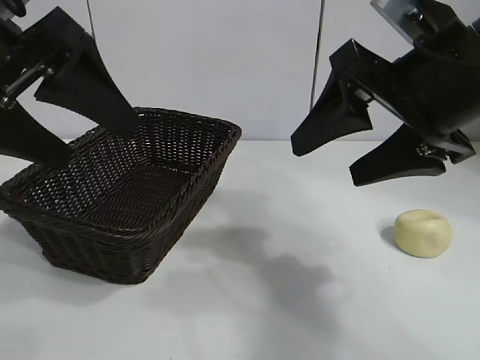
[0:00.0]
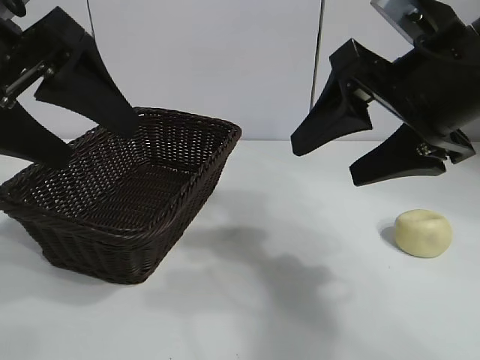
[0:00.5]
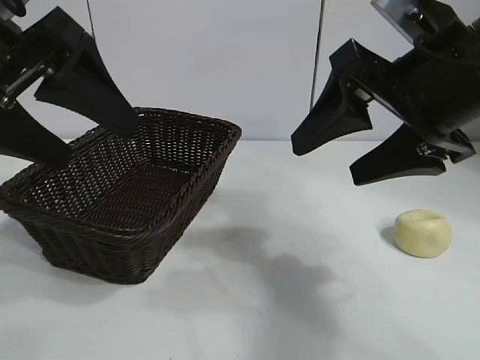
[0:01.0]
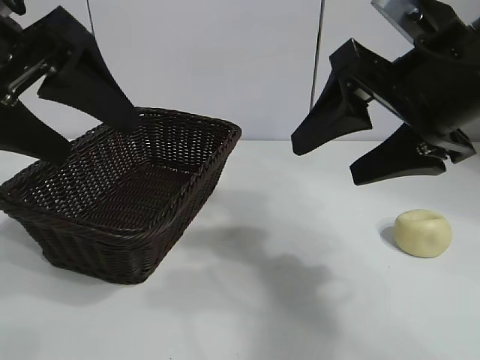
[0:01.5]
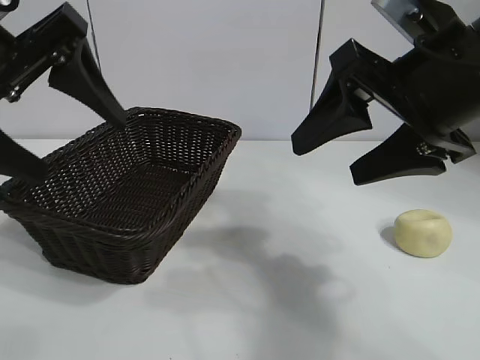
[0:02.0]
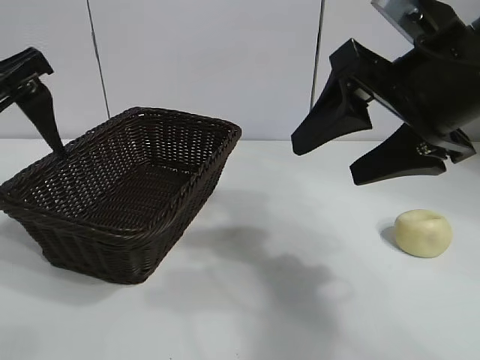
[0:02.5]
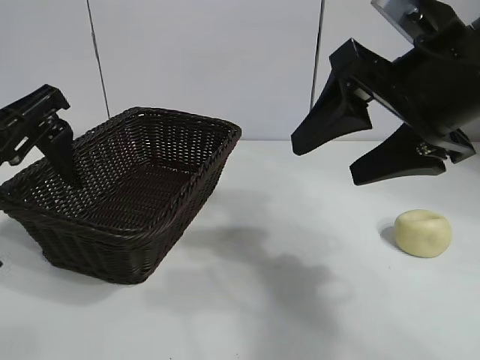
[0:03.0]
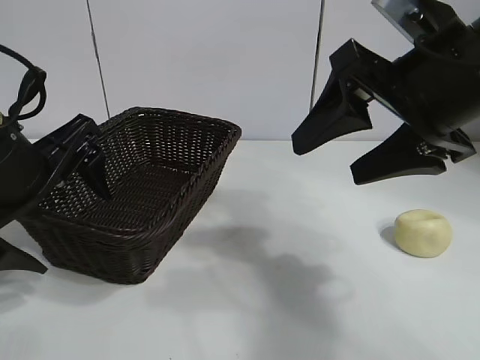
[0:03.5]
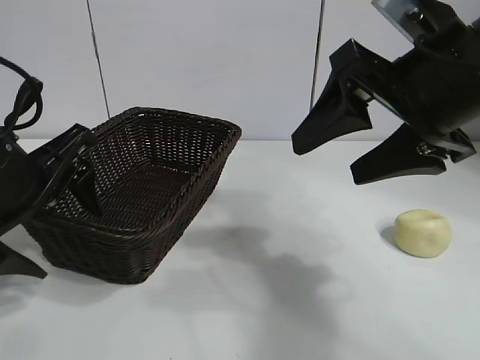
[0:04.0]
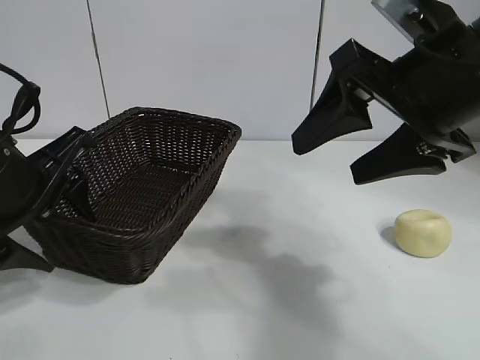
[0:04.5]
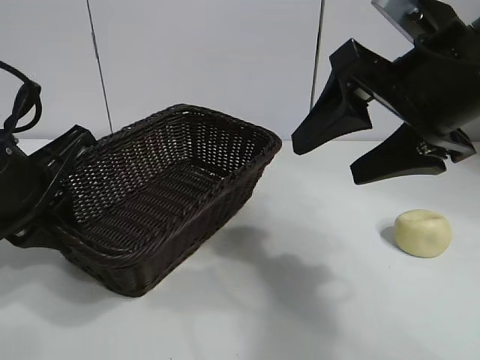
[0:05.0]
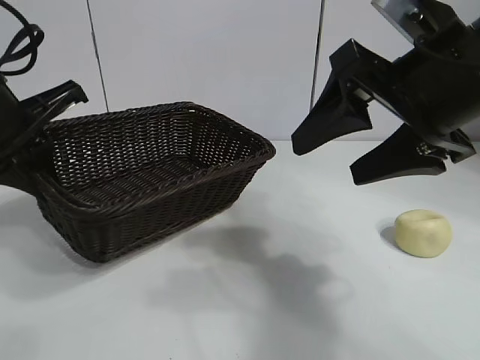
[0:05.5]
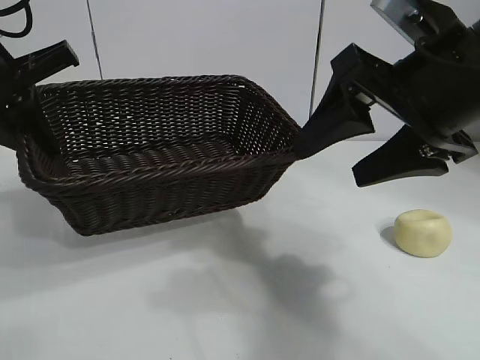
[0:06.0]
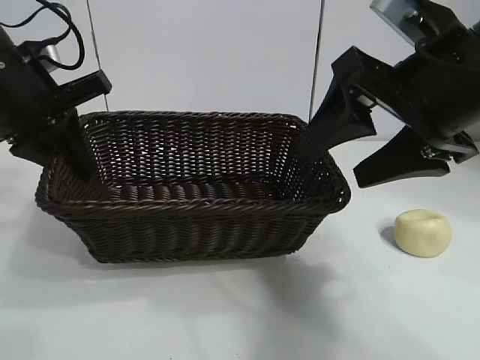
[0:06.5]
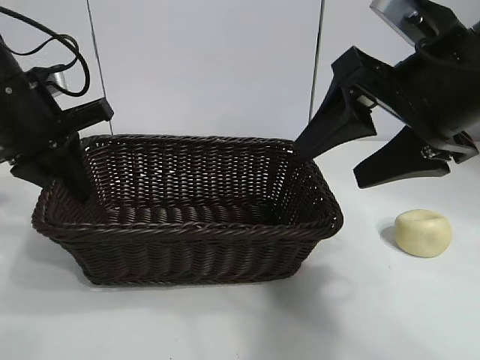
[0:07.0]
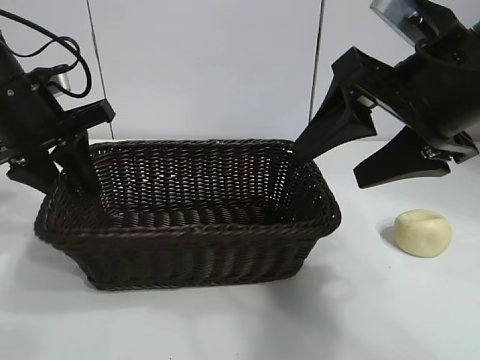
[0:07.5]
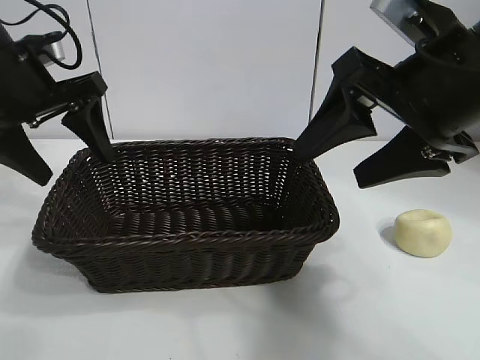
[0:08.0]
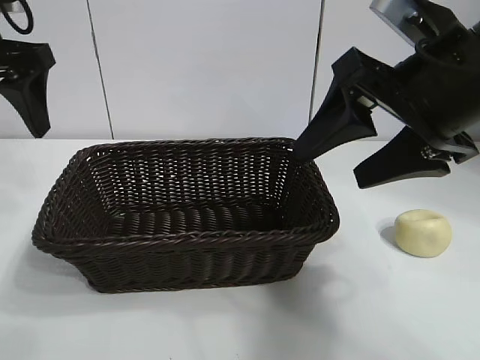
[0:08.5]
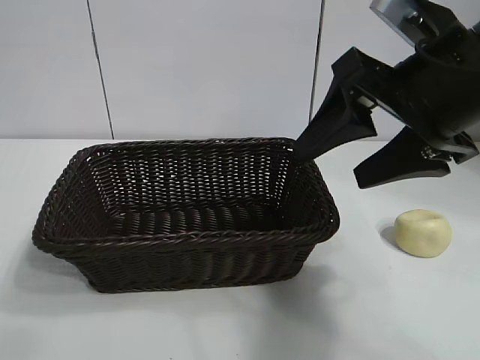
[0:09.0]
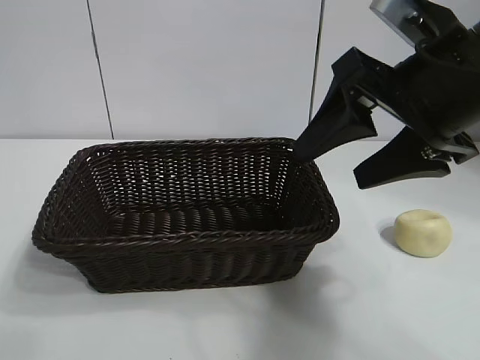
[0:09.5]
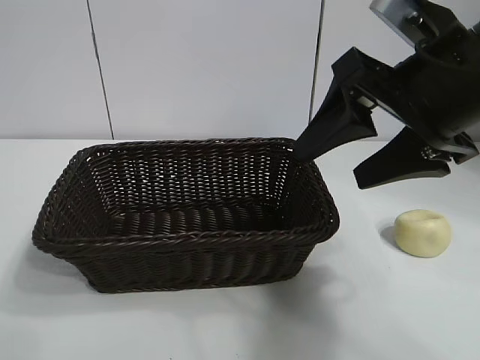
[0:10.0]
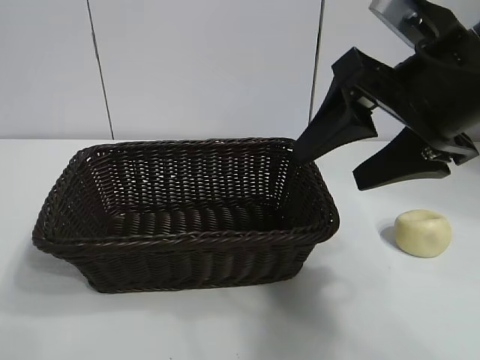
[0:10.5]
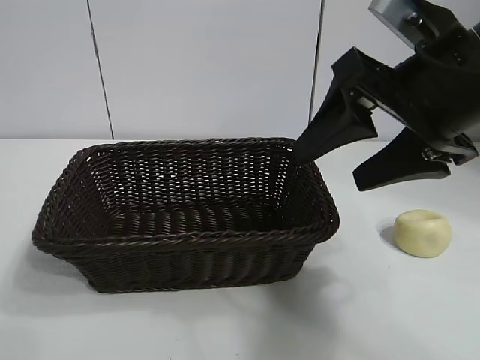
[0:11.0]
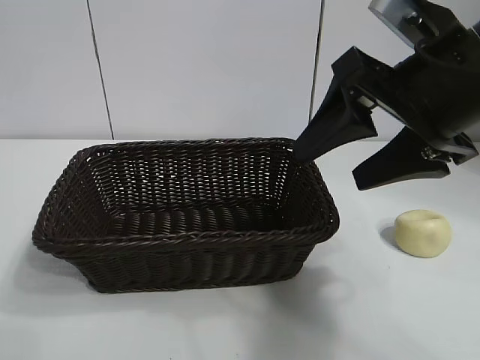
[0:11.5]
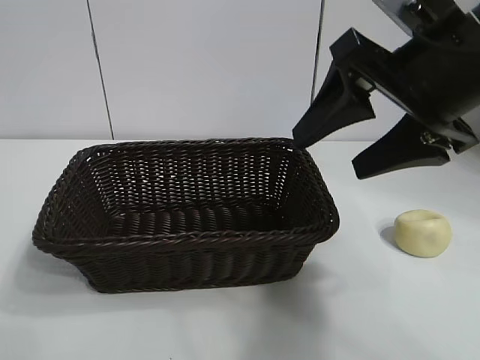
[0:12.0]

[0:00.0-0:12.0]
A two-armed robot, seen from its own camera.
Task of the whole recording: pick up the egg yolk pastry and put it into the basket.
Step, 0:01.5 to 0:04.5: Grasp the basket with left gripper.
Step, 0:05.5 to 0:07.5: Place the basket in the center of view with left gripper.

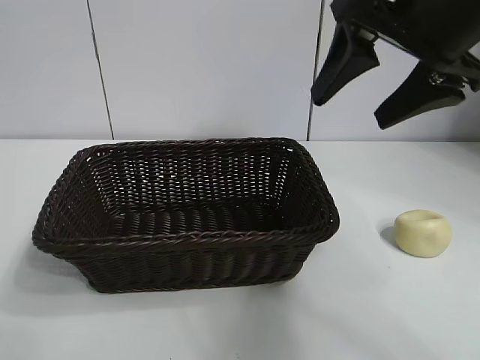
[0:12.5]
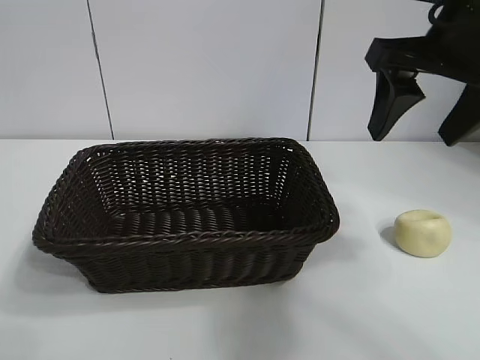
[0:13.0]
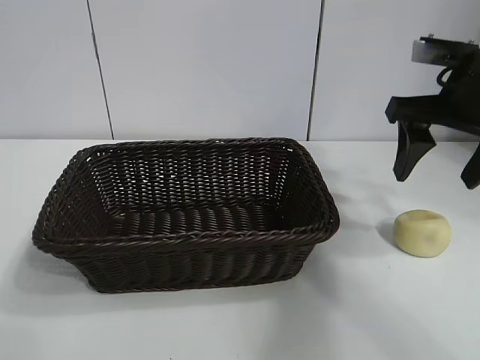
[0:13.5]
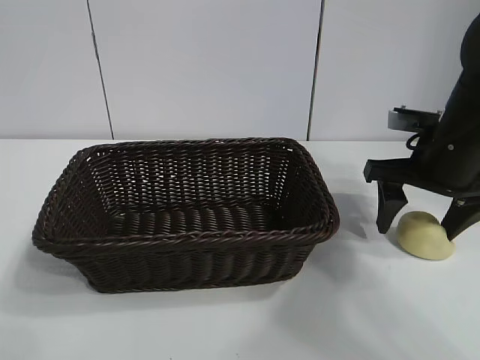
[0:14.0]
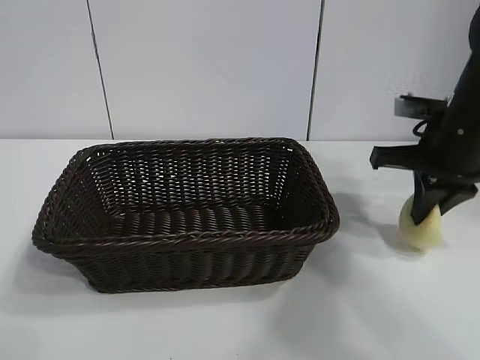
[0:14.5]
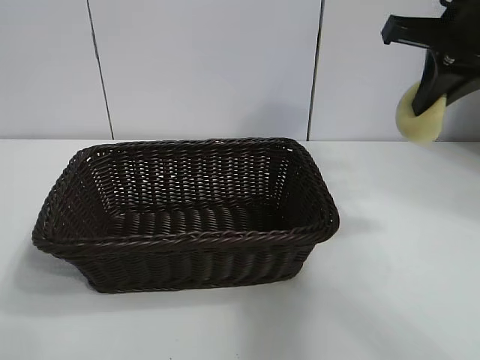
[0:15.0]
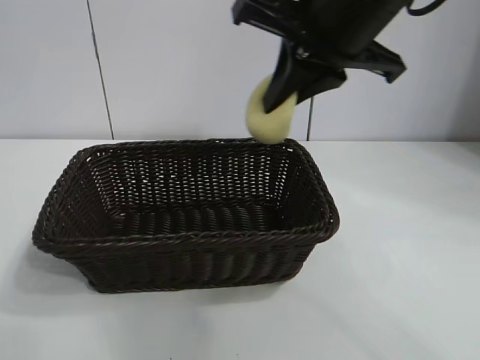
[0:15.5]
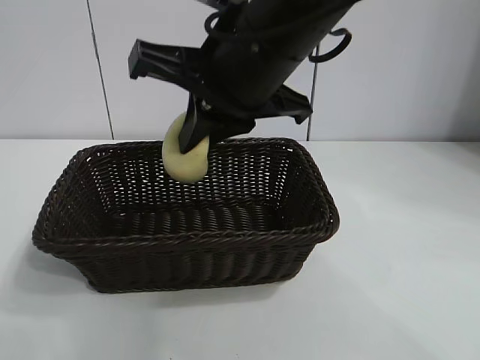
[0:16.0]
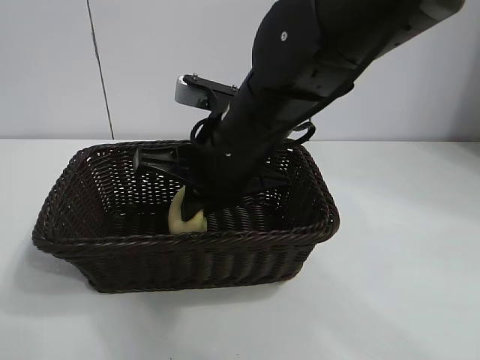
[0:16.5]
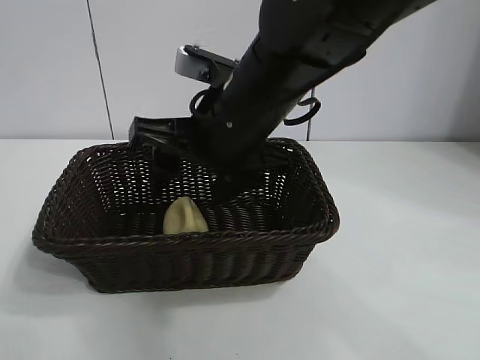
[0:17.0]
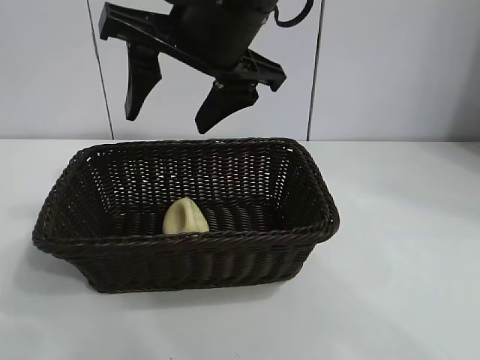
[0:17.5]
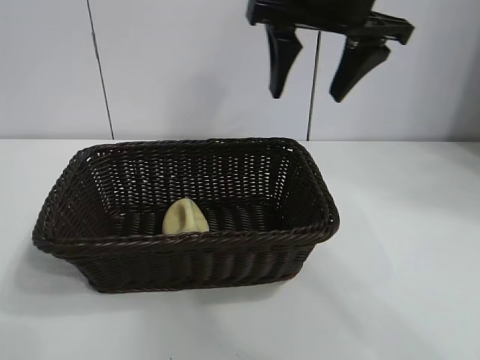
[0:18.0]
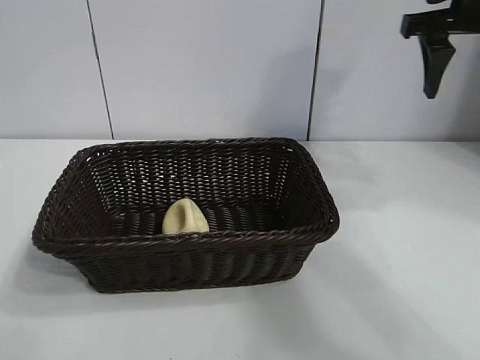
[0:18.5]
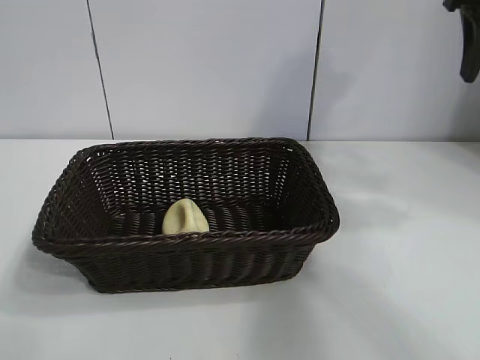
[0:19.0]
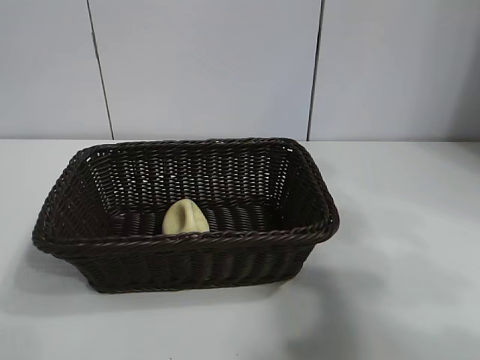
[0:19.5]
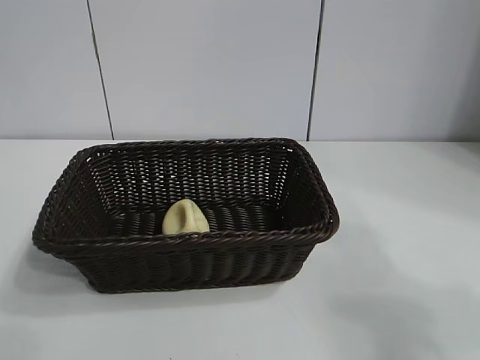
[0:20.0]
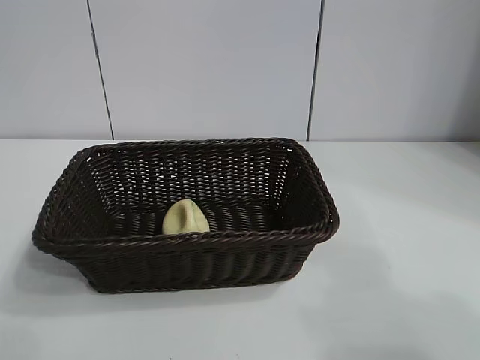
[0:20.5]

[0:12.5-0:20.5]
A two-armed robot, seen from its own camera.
Task of the whole recording: pick up the egg yolk pastry and put it into the basket.
Step, 0:14.5 to 0:17.0: Place the egg yolk pastry in the basket with right gripper.

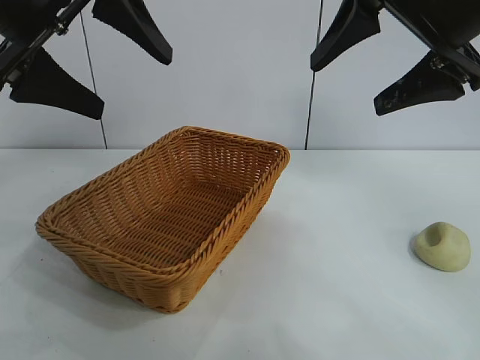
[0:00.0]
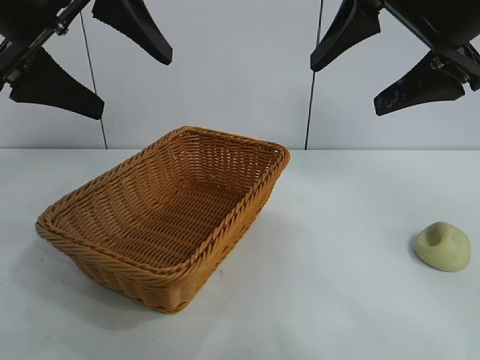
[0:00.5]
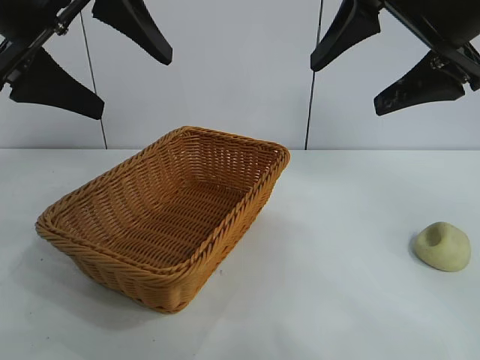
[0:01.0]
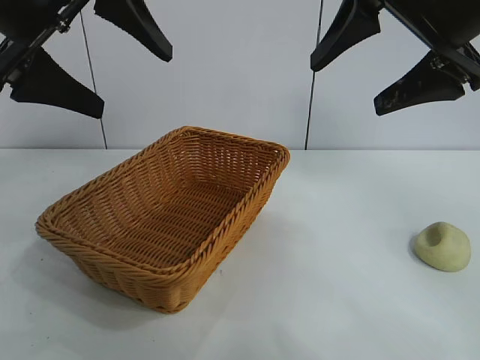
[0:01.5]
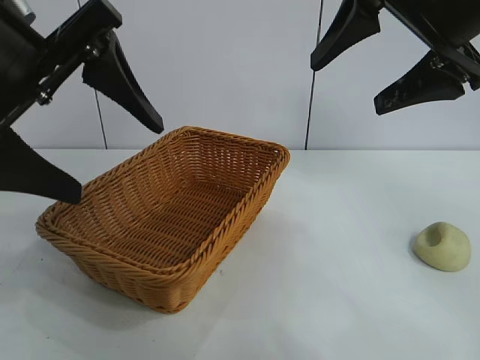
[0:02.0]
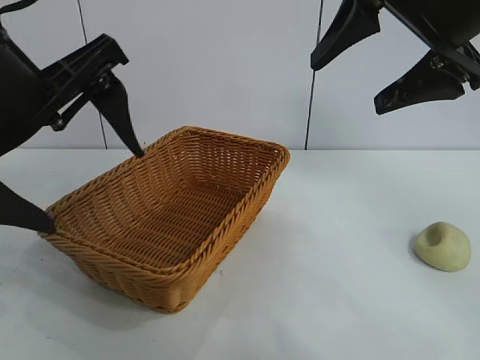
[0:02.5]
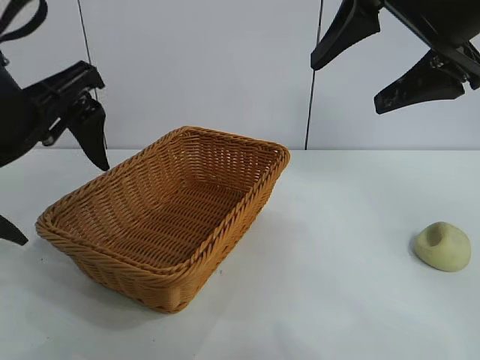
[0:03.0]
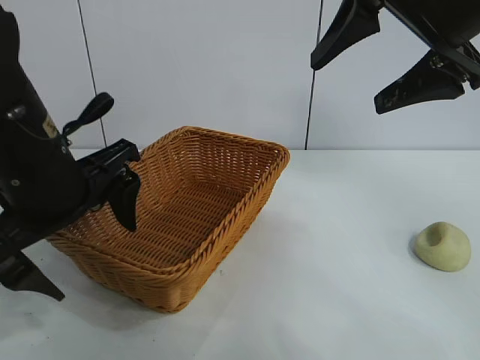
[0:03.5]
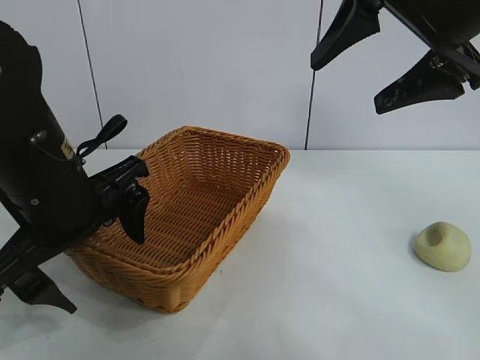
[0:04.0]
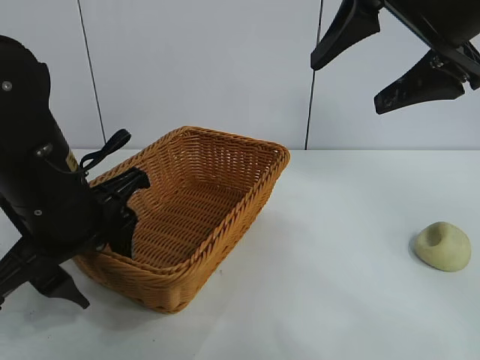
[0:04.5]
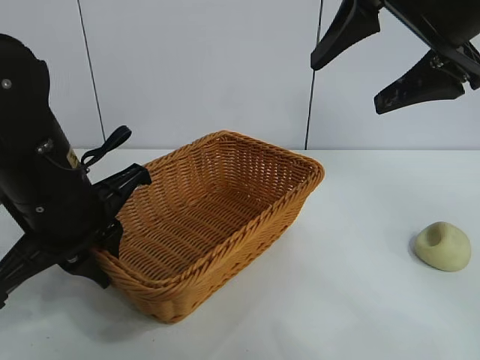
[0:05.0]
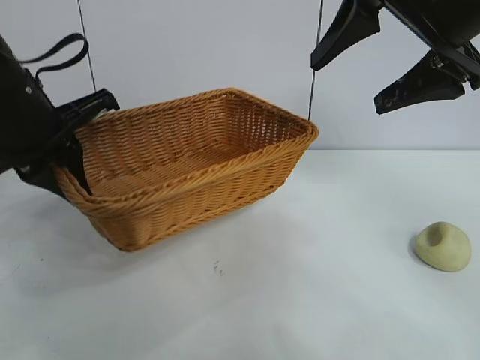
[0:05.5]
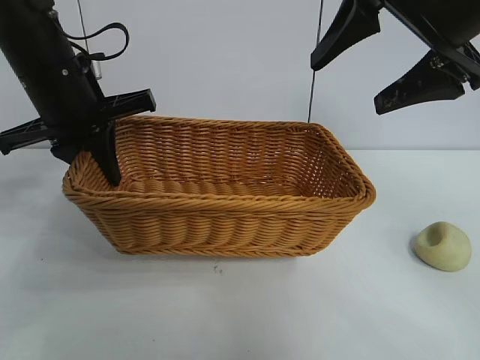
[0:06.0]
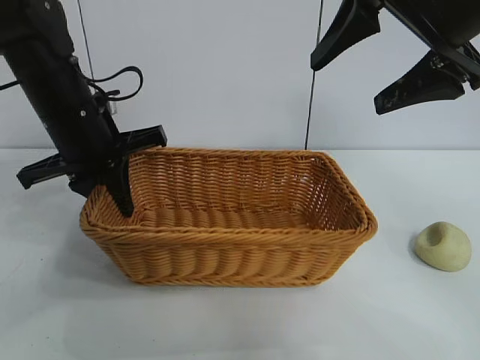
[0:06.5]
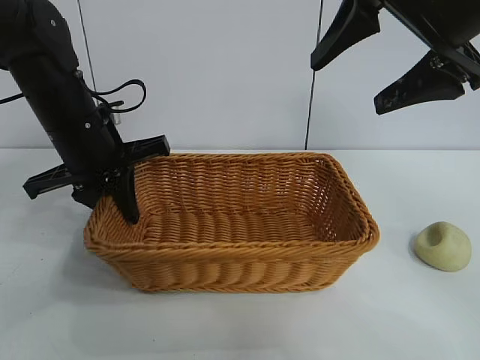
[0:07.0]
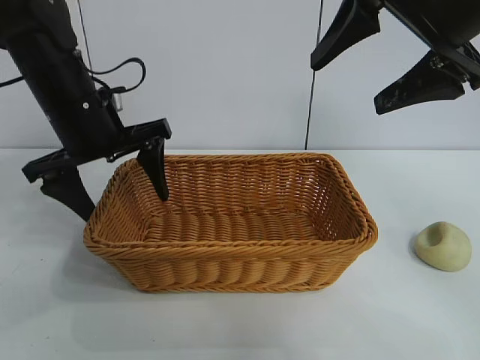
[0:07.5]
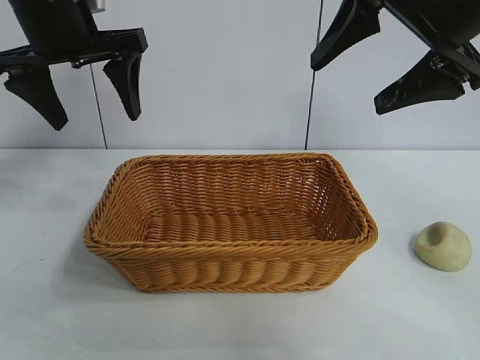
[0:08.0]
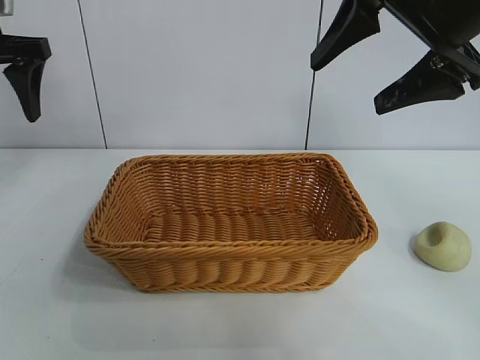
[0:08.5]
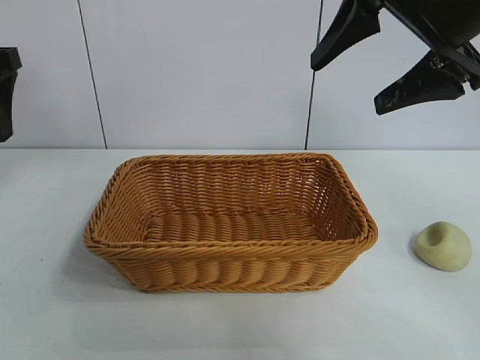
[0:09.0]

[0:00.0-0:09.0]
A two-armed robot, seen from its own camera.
Task of the whole recording: pick up the egg yolk pastry and put it into the basket.
Step, 0:01.5 to 0:04.5: Grasp the basket with left gripper.
Step, 0:05.0 to 0:07.0: Place the basket in the center of view with left gripper.
